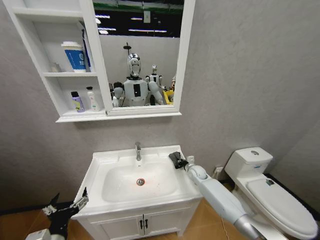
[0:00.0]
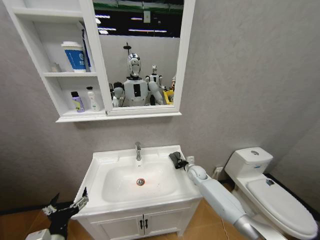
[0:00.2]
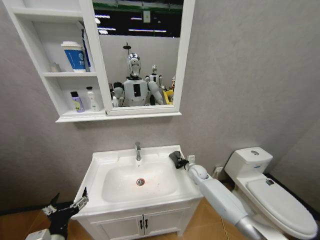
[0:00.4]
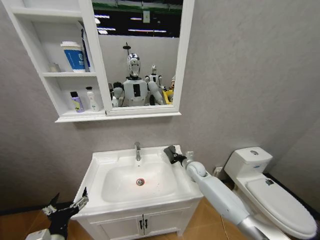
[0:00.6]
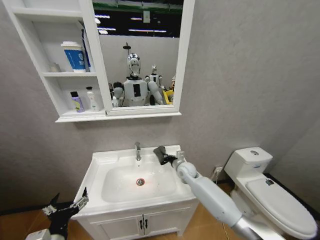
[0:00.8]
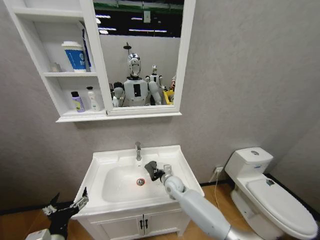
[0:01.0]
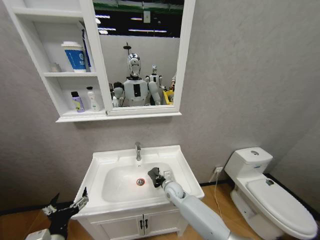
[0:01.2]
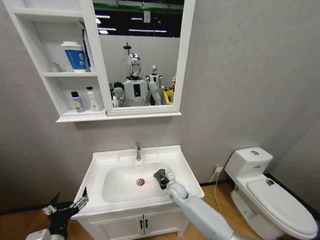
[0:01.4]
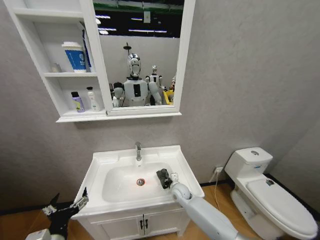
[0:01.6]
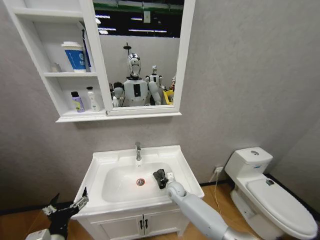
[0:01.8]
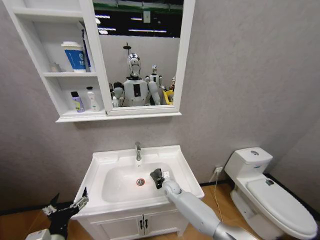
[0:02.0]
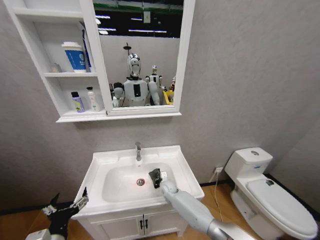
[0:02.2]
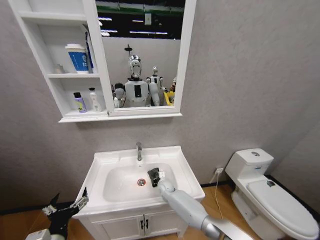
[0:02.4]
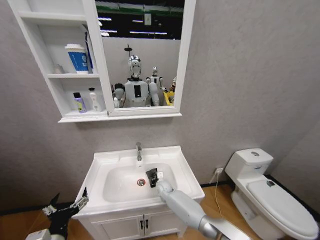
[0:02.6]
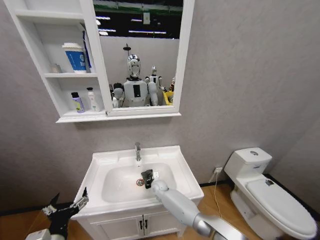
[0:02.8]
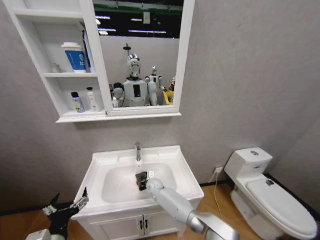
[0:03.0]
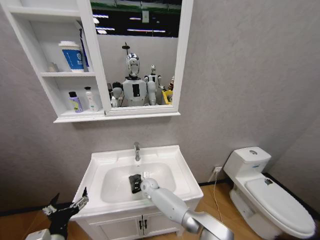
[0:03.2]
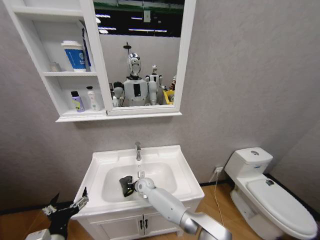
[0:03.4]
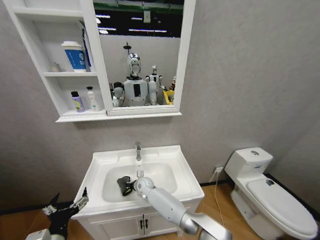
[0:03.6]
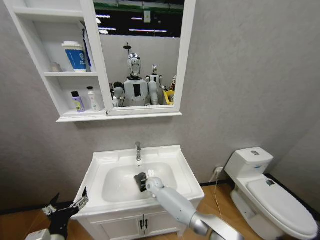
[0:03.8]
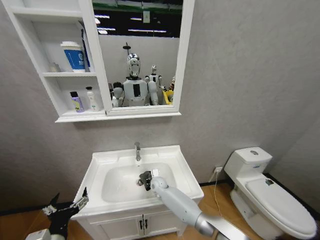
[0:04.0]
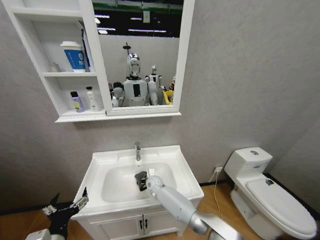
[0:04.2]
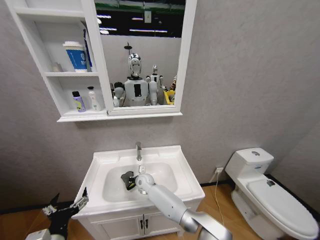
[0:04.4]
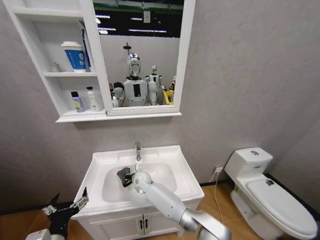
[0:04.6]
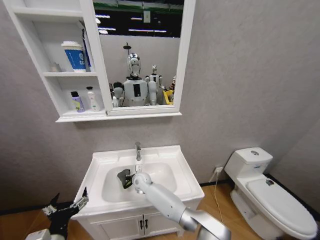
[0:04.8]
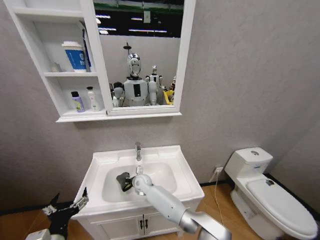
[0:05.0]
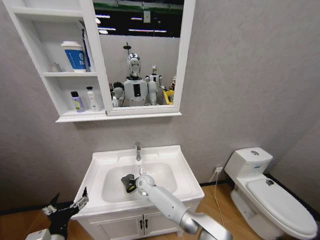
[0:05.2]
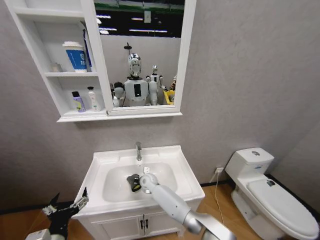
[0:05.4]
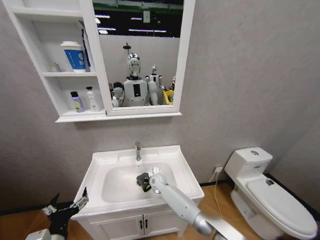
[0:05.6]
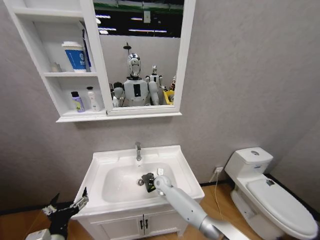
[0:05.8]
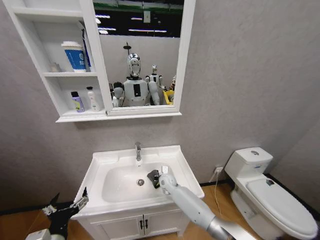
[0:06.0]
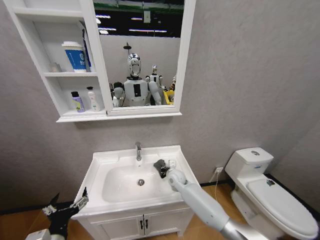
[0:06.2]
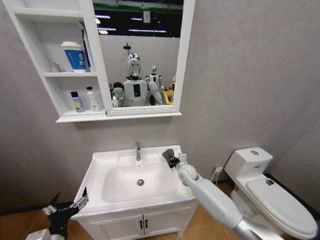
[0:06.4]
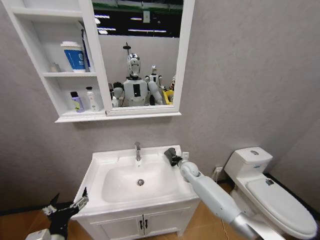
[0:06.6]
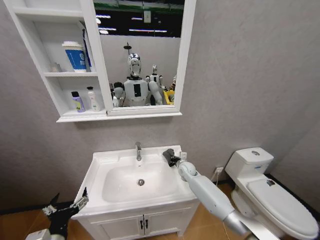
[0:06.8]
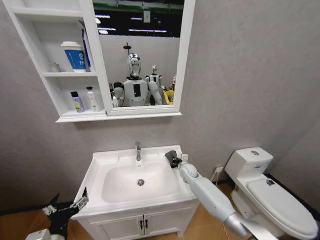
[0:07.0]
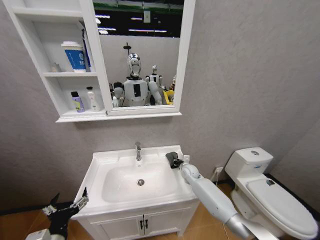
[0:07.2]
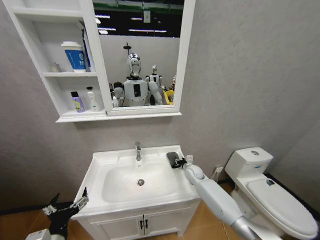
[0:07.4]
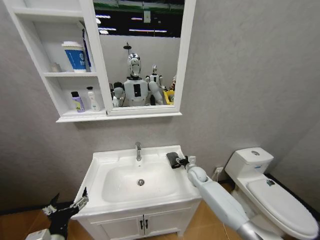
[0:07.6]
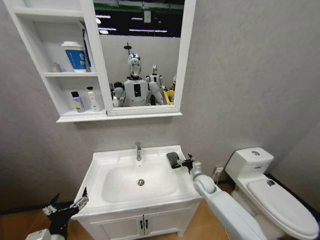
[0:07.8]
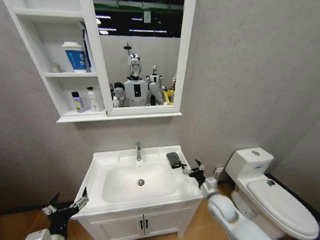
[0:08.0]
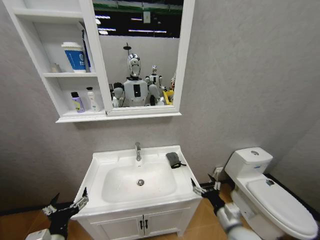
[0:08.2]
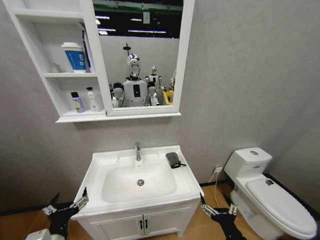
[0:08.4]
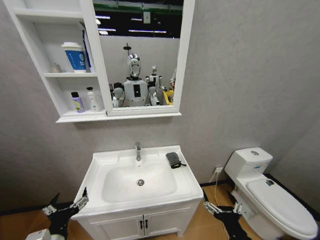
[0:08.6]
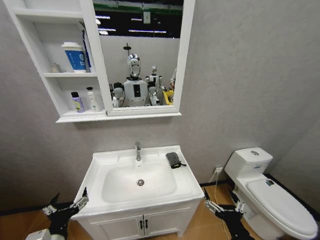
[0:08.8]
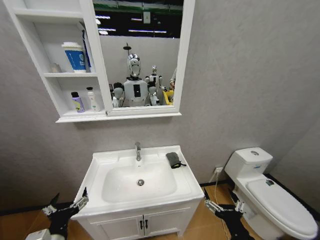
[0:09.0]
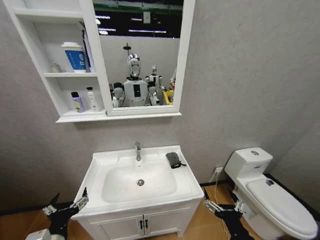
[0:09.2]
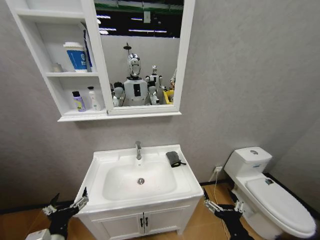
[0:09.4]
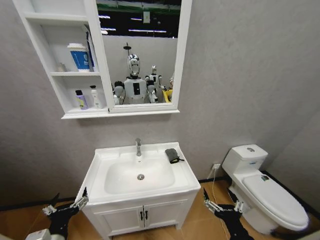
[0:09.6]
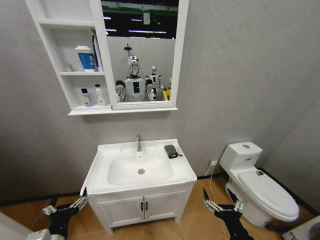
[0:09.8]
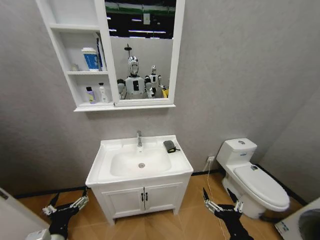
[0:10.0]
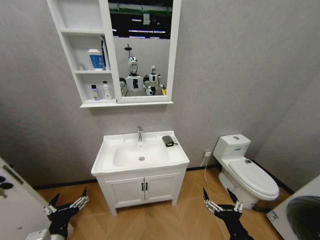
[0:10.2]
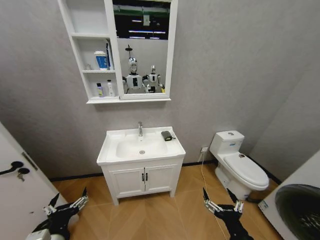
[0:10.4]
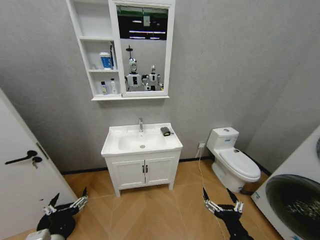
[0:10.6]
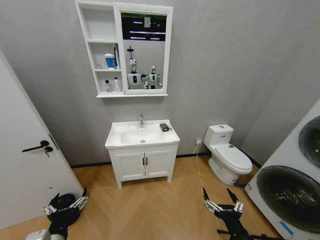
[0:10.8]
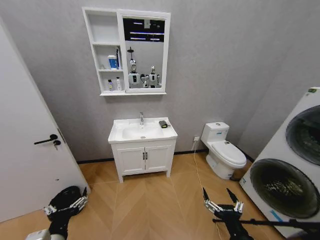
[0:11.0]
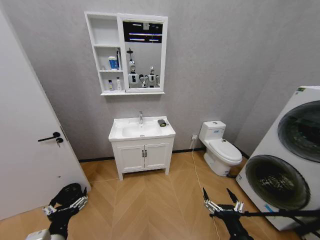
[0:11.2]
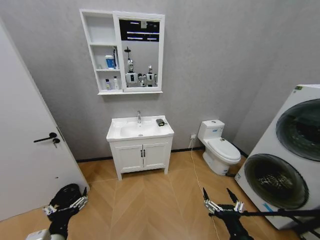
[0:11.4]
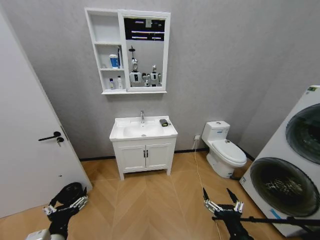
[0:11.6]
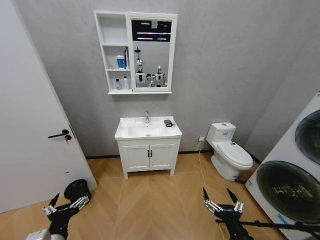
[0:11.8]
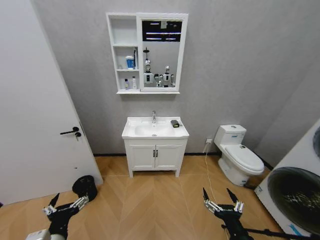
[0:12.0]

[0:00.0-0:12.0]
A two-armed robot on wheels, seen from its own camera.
Task of the whole recording: Move facial cleanser and shampoo from washbasin to cabinet, then wipe washbasin with towel.
0:00.0 to 0:01.6: The right gripper travels to the left and backward by some 15 cm.
0:01.6 to 0:03.0: The right gripper travels to the left and forward by roughly 15 cm.
0:03.0 to 0:04.4: The right gripper moves left and right over roughly 10 cm, changing direction 2 times.
0:04.4 to 0:06.0: The right gripper goes approximately 15 cm to the right.
0:06.0 to 0:07.6: The right gripper travels to the right by approximately 15 cm, and opens up.
0:07.6 to 0:09.0: The right gripper is displaced backward by approximately 40 cm, and opens.

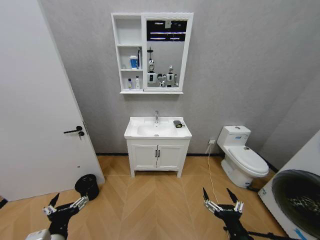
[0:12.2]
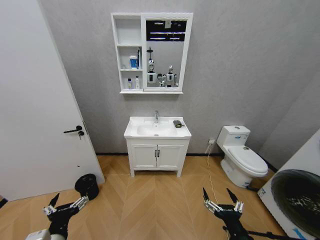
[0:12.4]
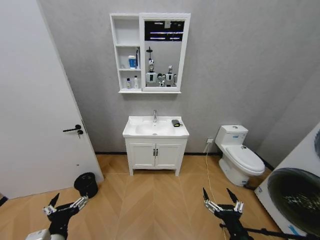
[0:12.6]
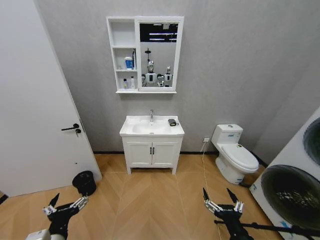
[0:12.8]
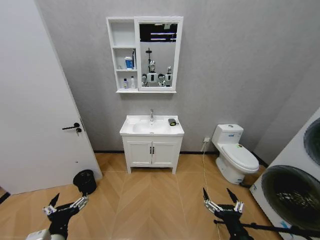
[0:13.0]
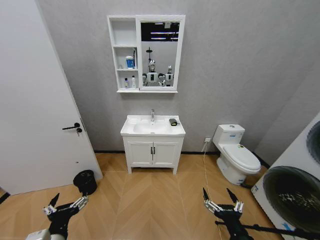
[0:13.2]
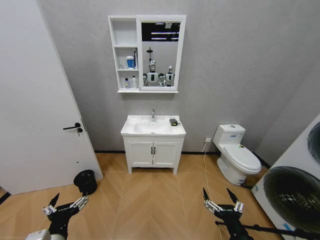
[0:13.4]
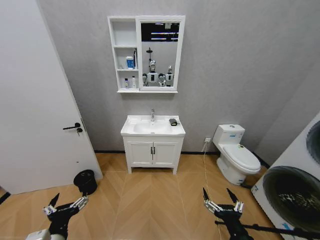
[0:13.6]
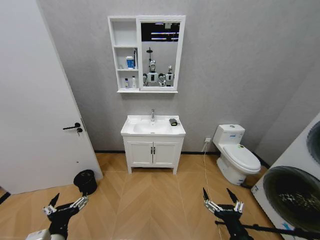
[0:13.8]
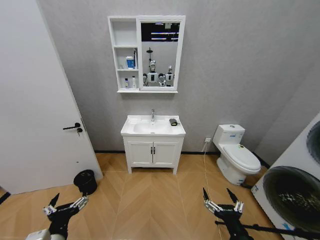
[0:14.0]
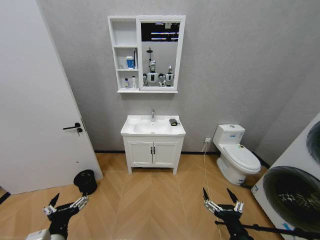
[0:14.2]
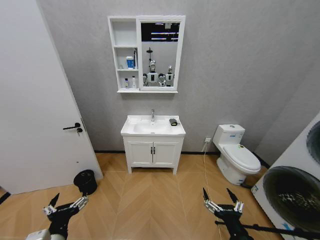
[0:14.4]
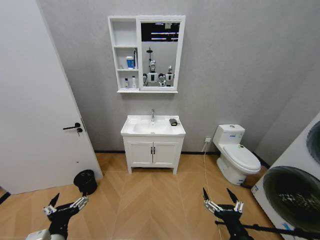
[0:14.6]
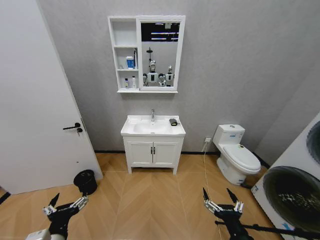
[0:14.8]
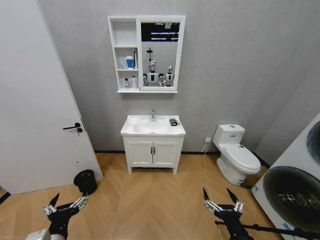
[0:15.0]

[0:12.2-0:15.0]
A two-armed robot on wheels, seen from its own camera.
Task of the whole recording: Move facial cleanser and shampoo from washbasin to cabinet, then wipe washbasin with towel.
0:12.2 to 0:15.0: Both grippers stay put.
